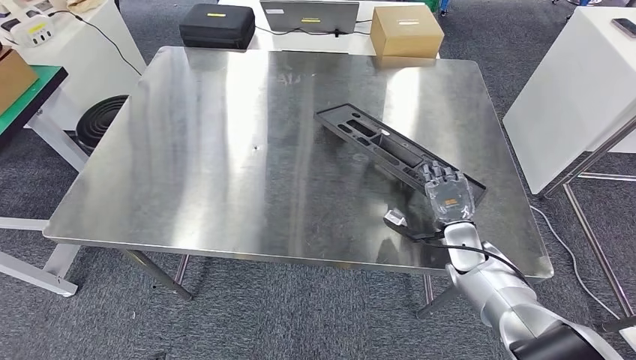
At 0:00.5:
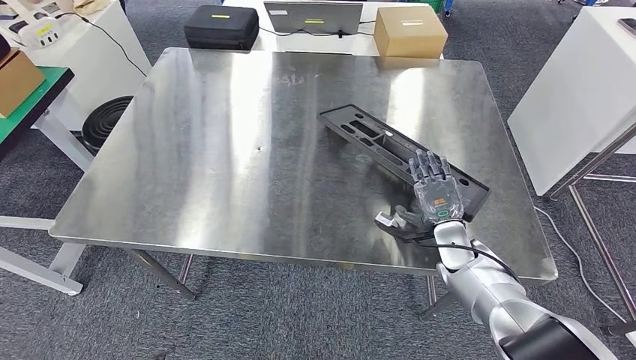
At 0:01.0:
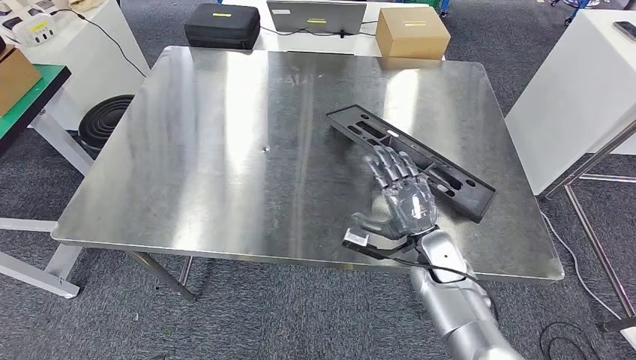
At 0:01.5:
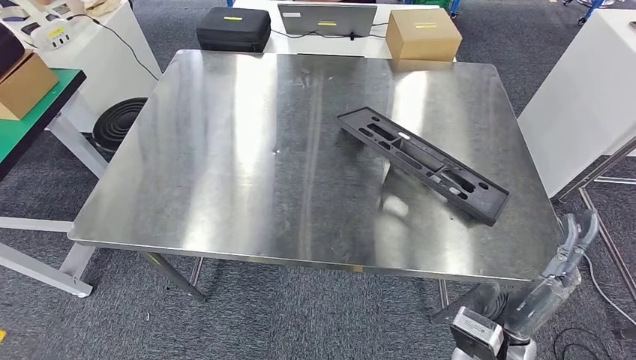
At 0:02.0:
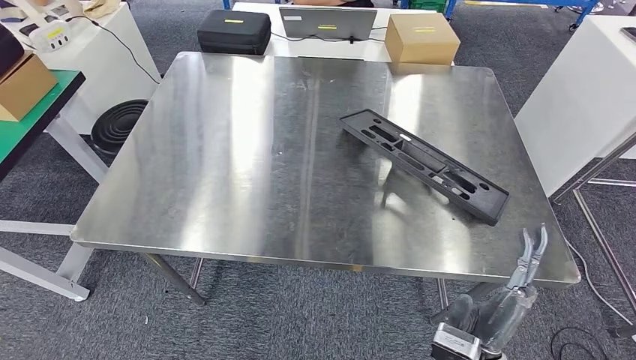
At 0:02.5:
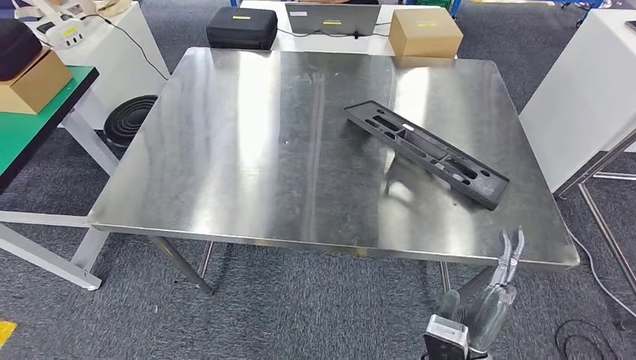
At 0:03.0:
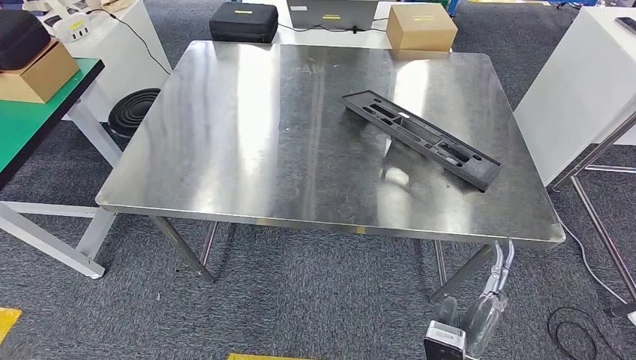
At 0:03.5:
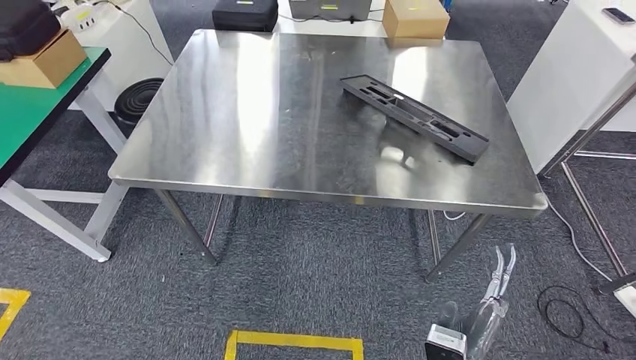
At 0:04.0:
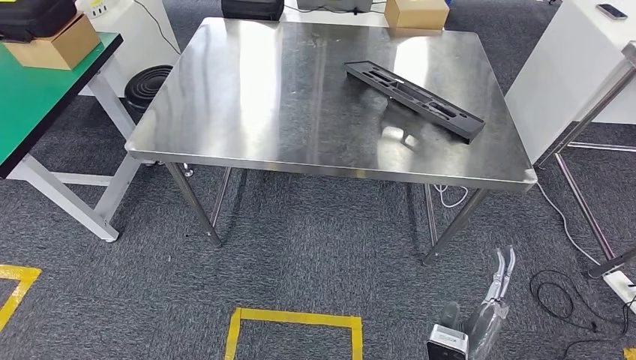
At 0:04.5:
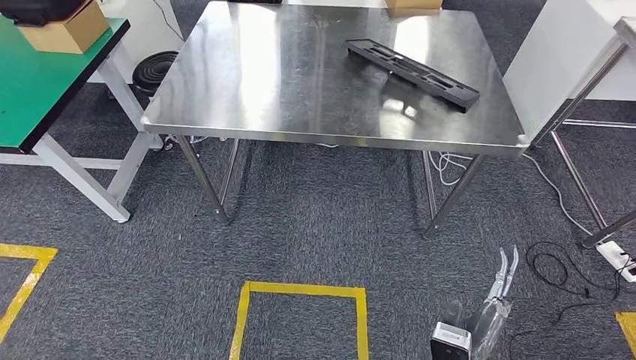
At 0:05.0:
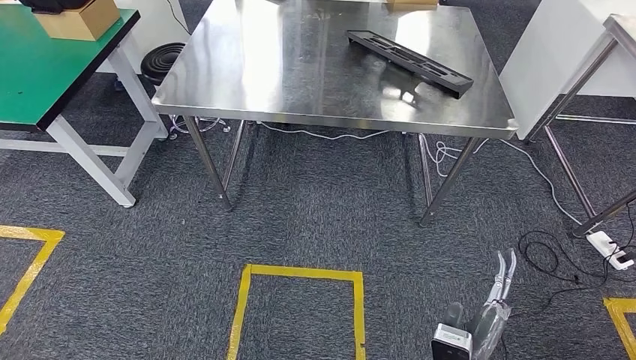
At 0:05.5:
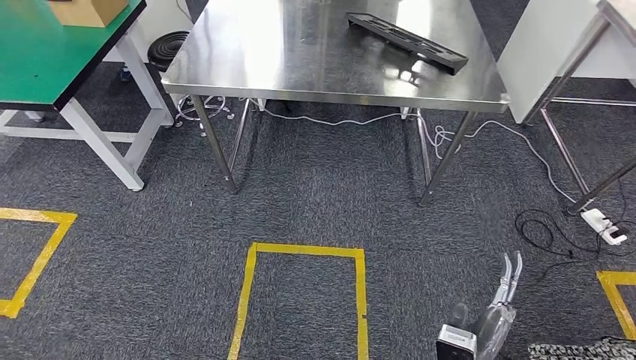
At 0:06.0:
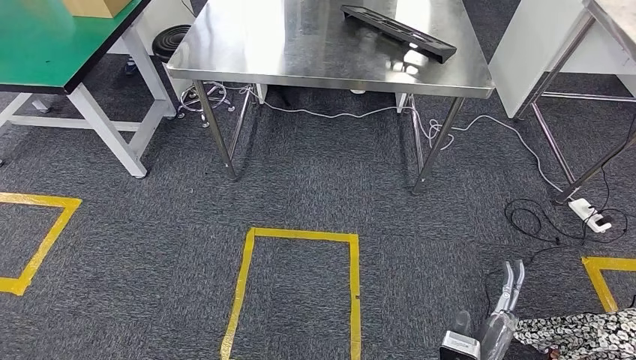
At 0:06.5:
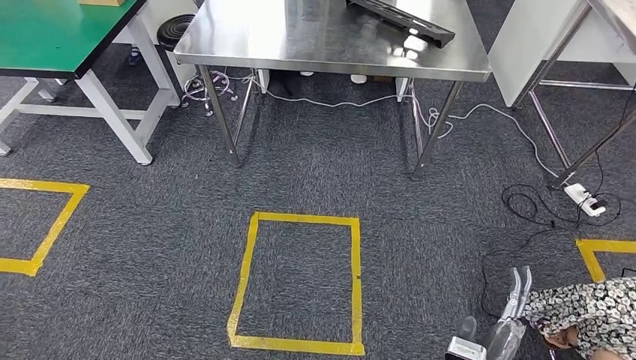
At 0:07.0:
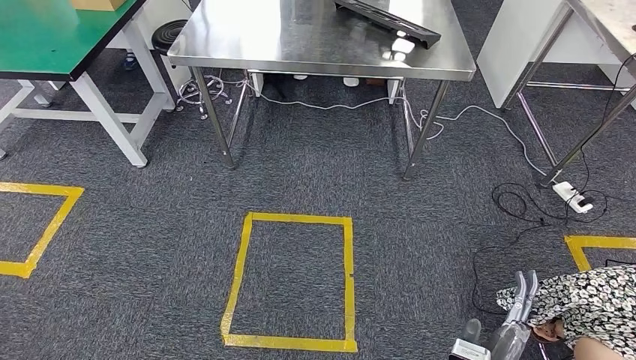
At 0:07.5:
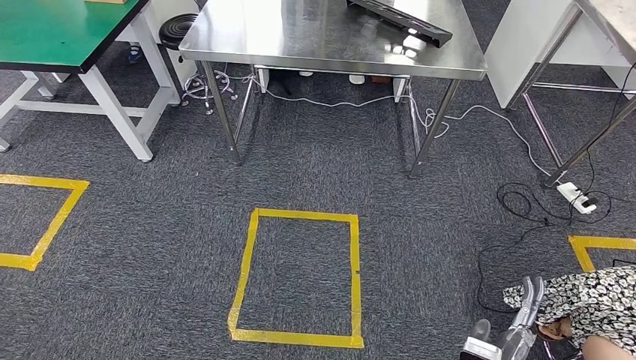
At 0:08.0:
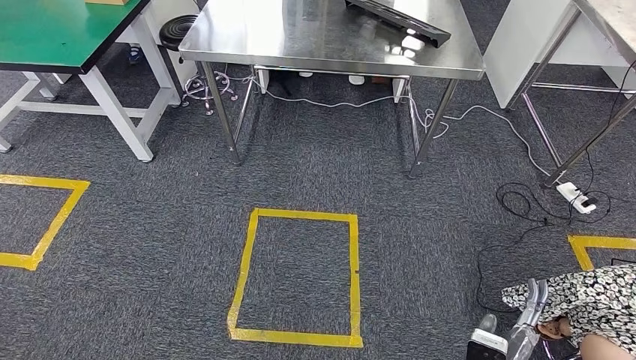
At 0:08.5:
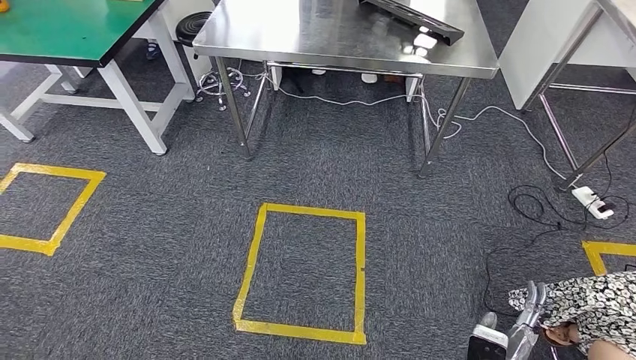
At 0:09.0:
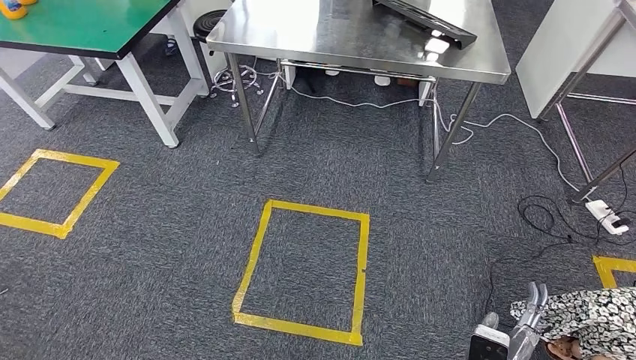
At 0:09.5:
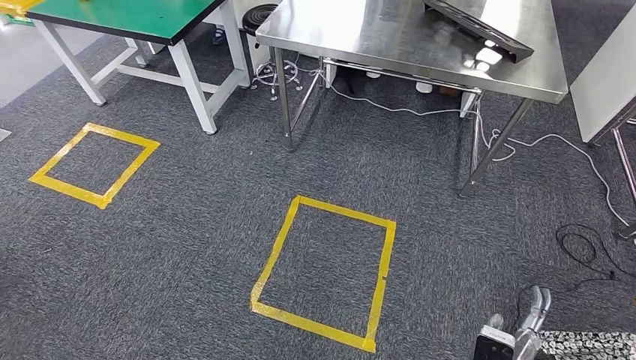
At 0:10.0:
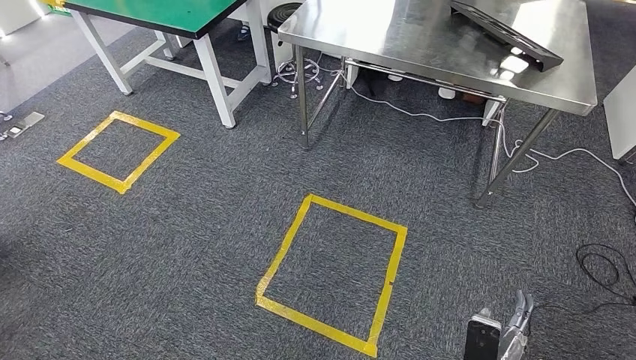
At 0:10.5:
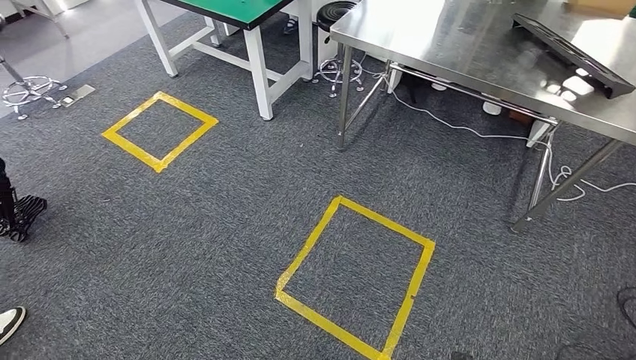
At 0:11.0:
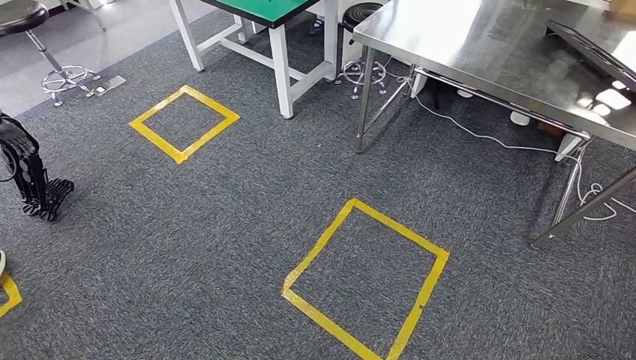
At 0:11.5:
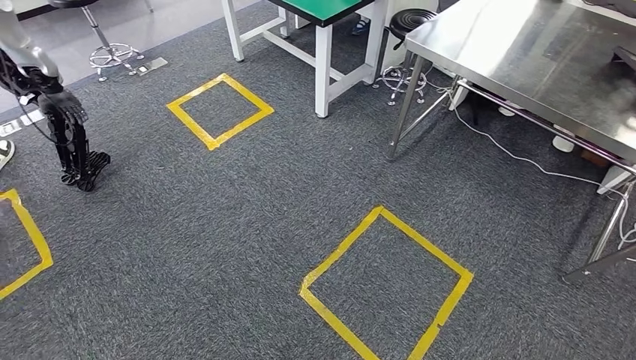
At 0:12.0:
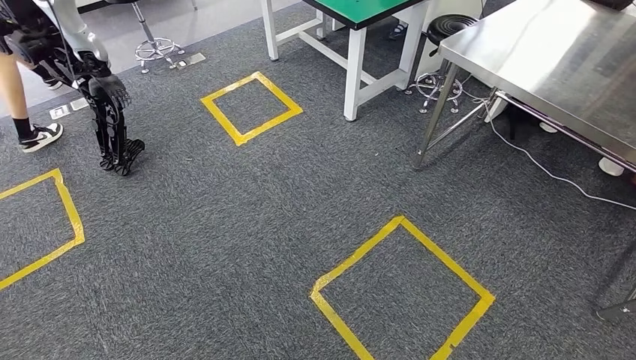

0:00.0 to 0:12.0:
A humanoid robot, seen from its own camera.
Step, 0:00.0 to 0:03.0: Insert the large material into the corresponding slot on the workbench.

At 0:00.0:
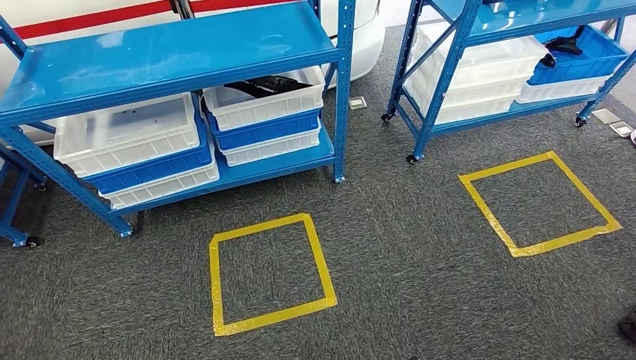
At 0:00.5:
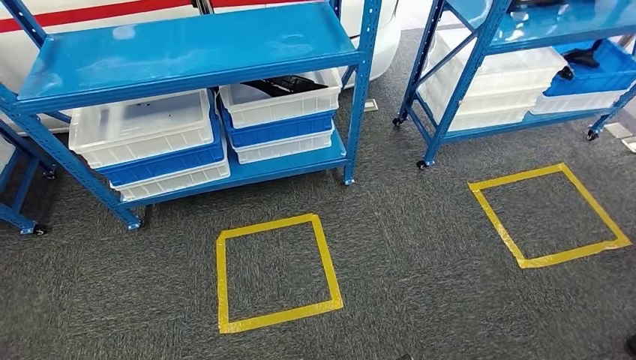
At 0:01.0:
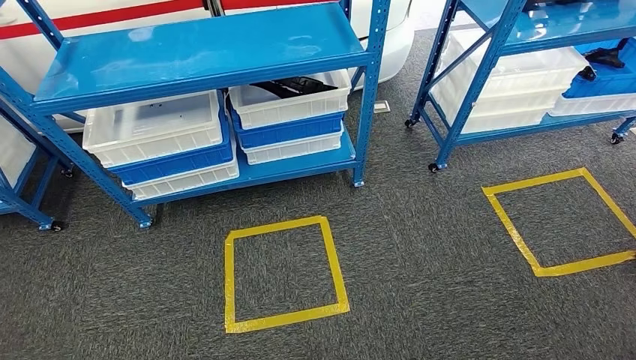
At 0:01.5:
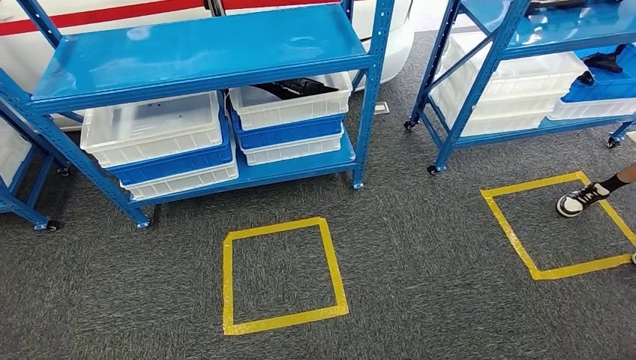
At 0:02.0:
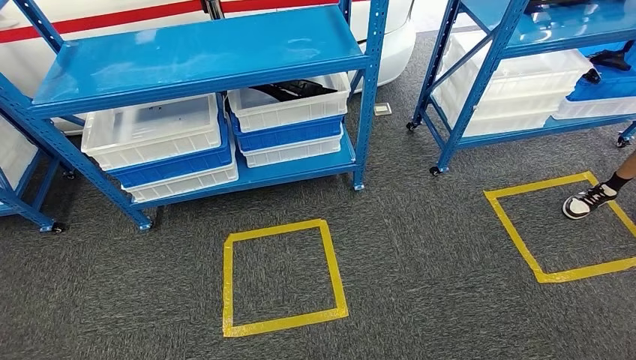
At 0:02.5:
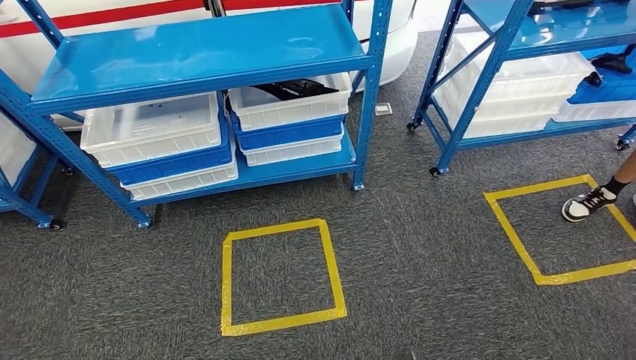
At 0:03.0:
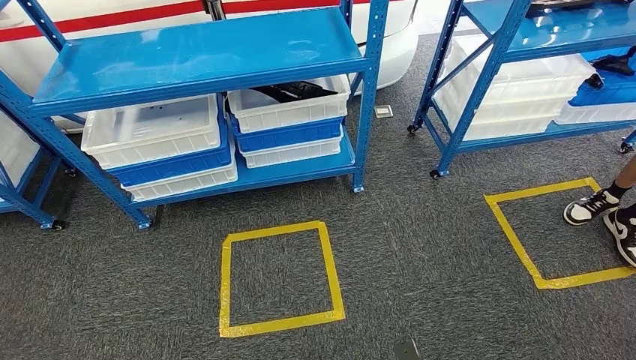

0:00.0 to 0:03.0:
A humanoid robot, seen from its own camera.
Step, 0:00.0 to 0:03.0: Move to the initial position of the shelf.
0:01.5 to 0:03.0: The hands stay close to where they were, moving slightly.
